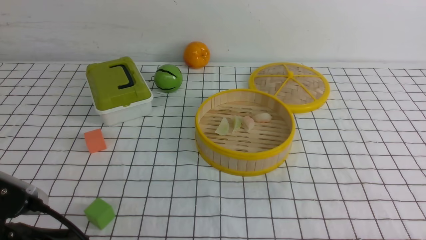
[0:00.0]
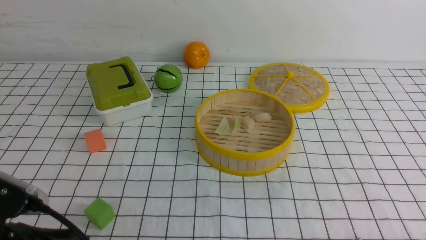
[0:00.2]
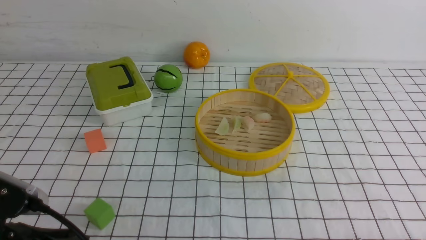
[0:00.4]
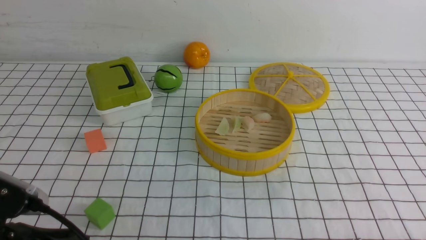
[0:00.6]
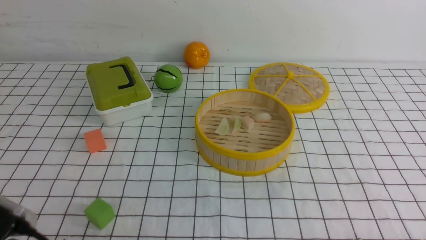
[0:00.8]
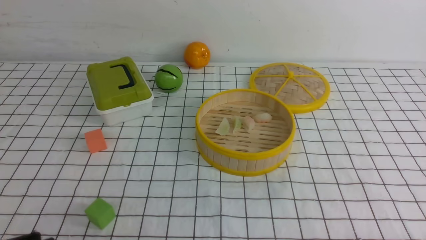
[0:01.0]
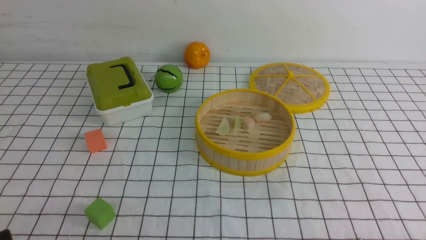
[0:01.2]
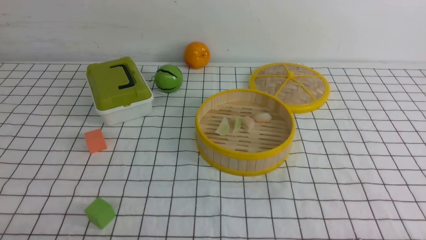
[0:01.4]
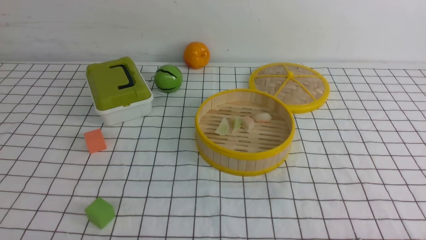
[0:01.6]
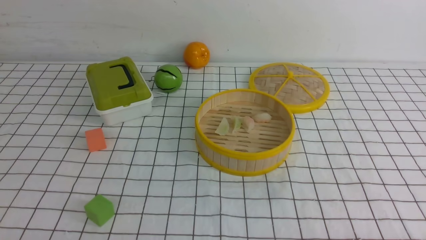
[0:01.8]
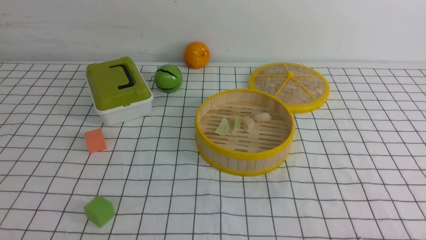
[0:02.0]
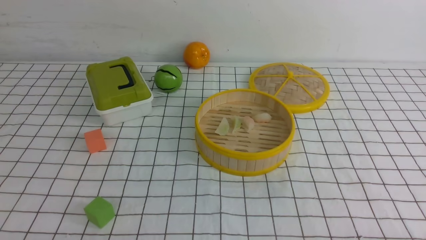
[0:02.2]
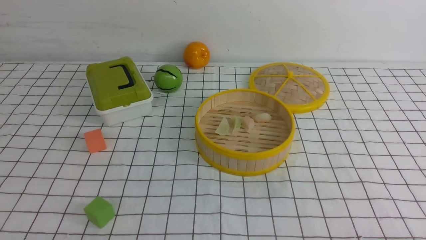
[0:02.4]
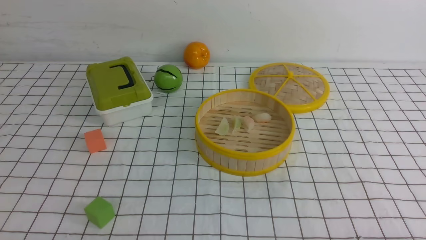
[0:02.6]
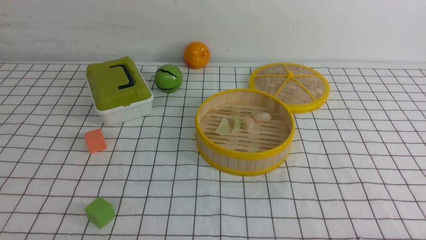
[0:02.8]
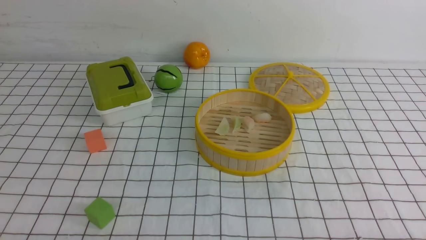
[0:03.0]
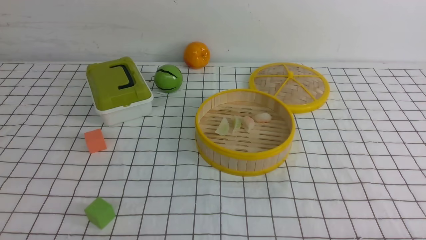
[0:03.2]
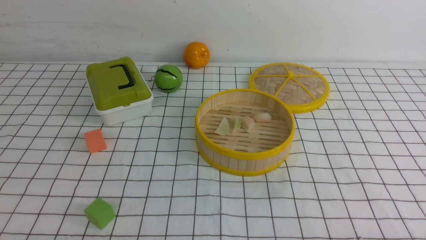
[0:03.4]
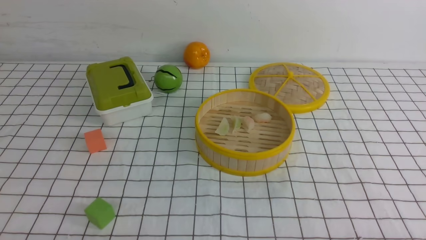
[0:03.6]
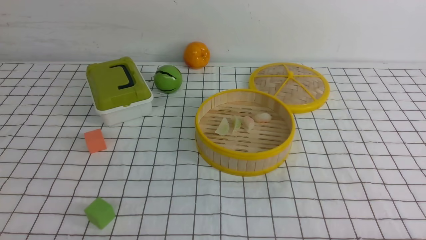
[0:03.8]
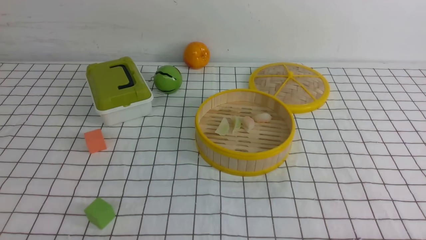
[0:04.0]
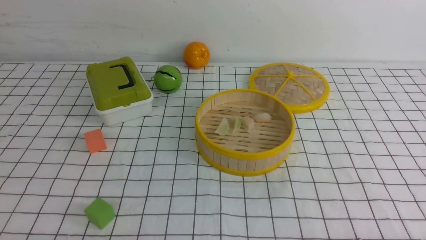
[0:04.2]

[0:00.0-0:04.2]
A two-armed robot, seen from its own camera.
Task of the whole recording: put the dumplings into the steamer on the table with the white tablecloth.
0:00.0 to 0:01.4: The left gripper travels to the left and backward by roughly 10 cm.
0:01.4 to 0:02.8: There are only small adjustments of the grippers.
0:02.8 to 0:04.2: Neither gripper changes place.
